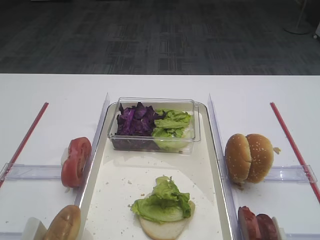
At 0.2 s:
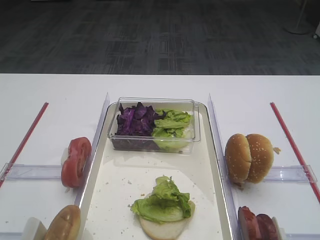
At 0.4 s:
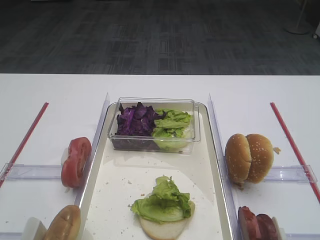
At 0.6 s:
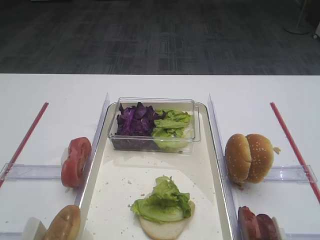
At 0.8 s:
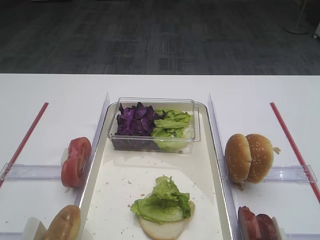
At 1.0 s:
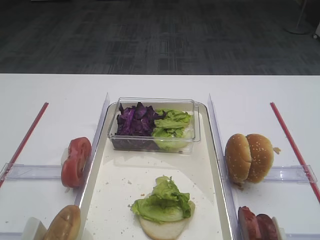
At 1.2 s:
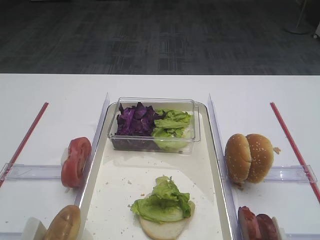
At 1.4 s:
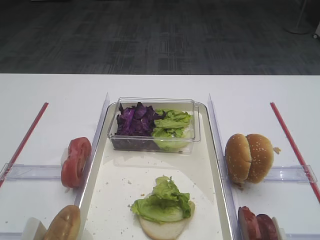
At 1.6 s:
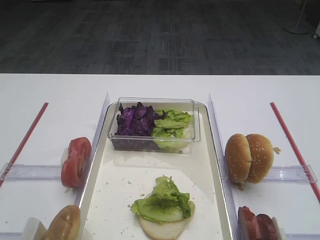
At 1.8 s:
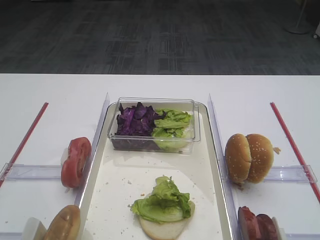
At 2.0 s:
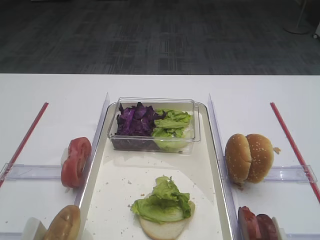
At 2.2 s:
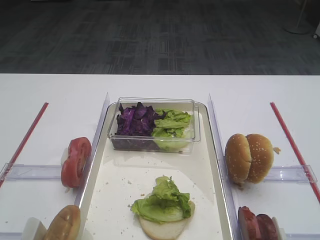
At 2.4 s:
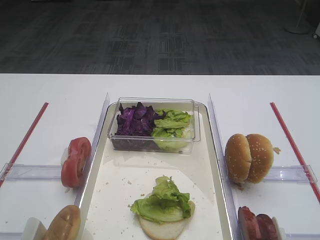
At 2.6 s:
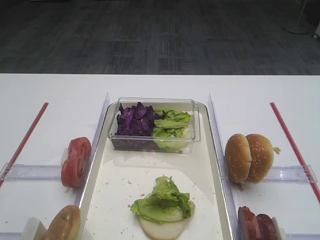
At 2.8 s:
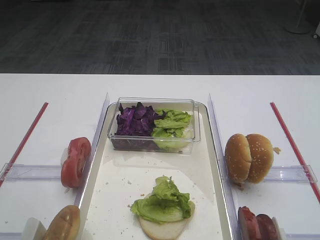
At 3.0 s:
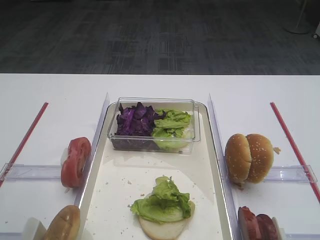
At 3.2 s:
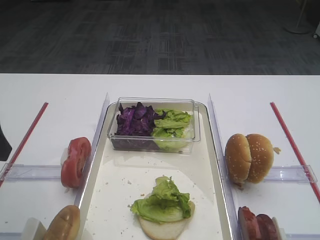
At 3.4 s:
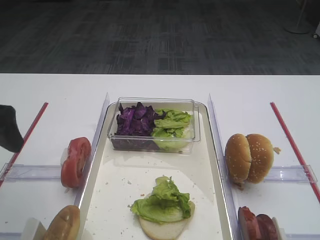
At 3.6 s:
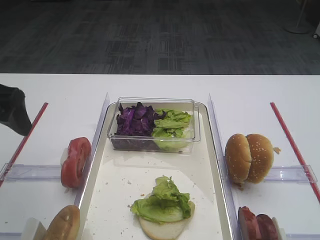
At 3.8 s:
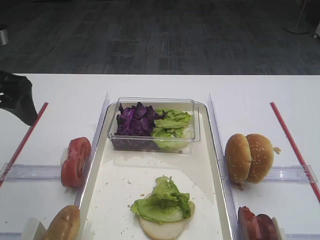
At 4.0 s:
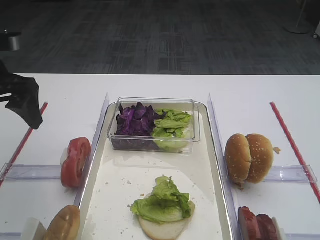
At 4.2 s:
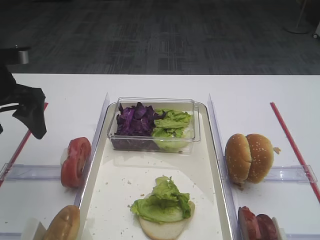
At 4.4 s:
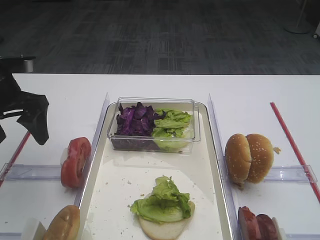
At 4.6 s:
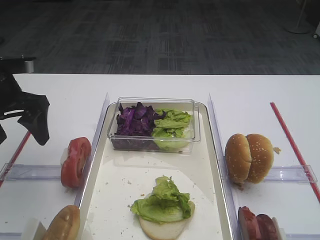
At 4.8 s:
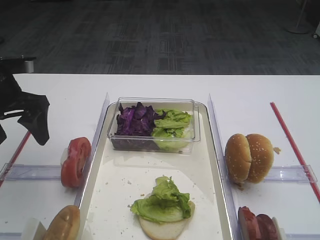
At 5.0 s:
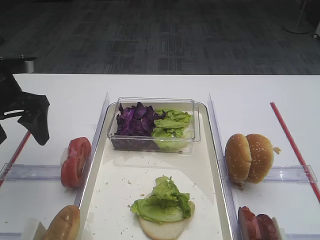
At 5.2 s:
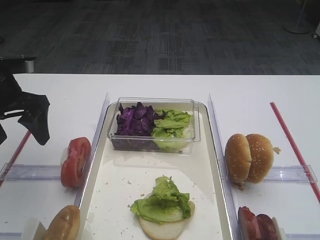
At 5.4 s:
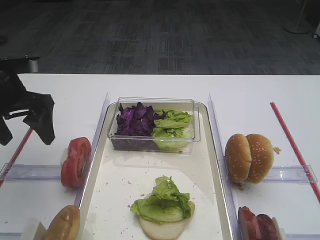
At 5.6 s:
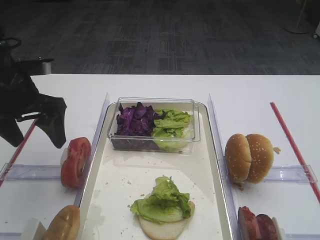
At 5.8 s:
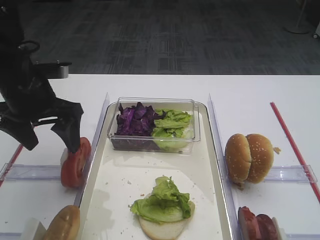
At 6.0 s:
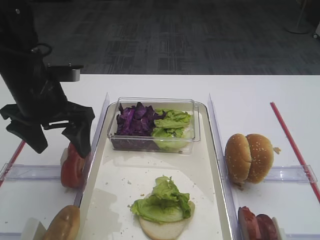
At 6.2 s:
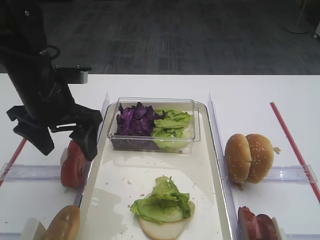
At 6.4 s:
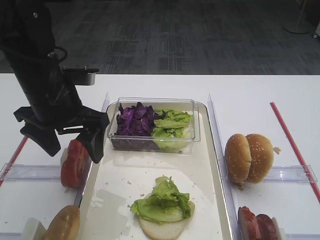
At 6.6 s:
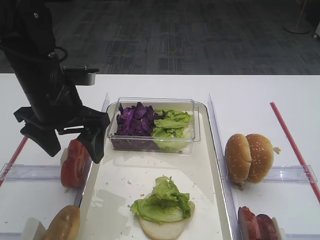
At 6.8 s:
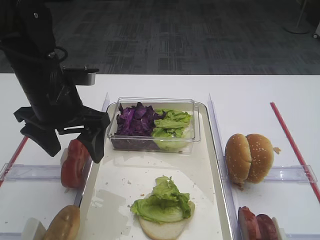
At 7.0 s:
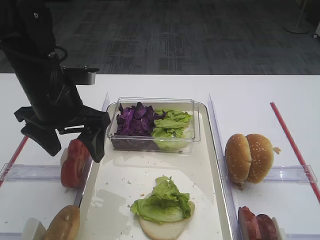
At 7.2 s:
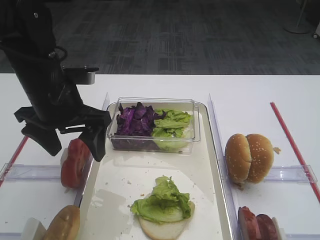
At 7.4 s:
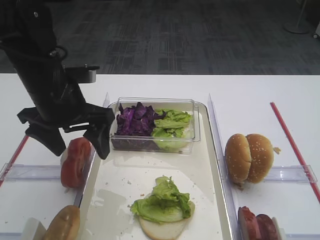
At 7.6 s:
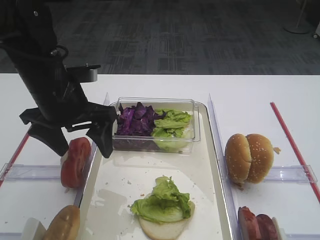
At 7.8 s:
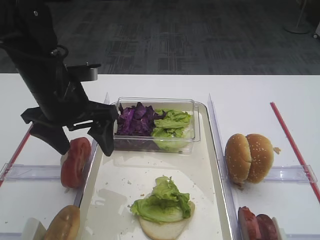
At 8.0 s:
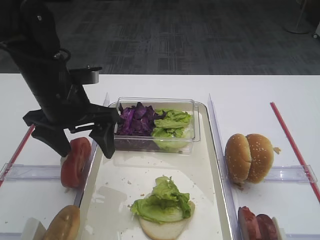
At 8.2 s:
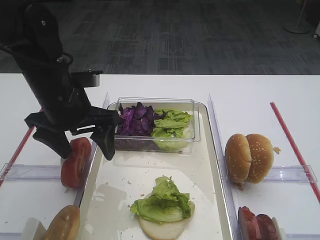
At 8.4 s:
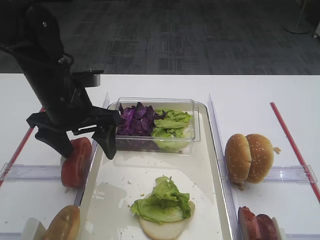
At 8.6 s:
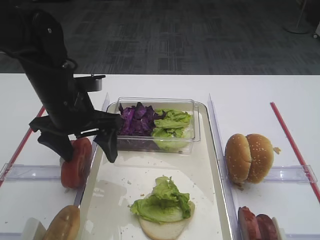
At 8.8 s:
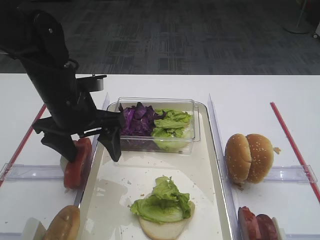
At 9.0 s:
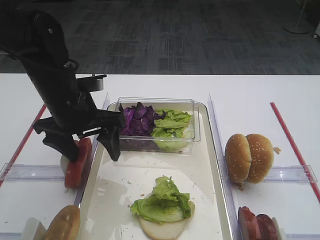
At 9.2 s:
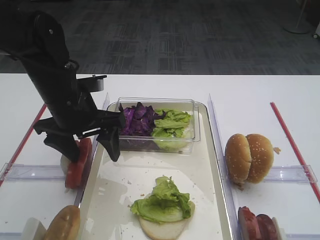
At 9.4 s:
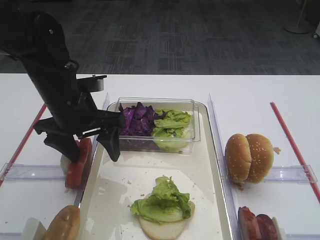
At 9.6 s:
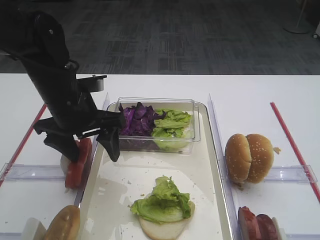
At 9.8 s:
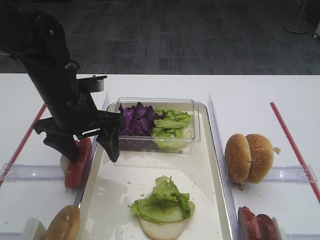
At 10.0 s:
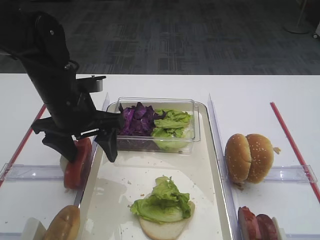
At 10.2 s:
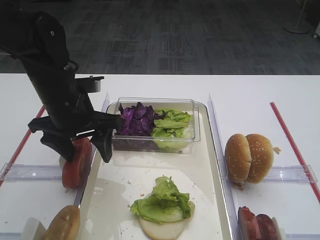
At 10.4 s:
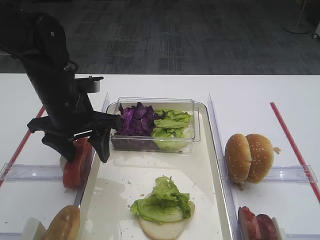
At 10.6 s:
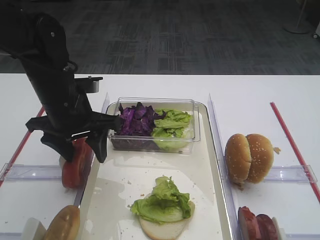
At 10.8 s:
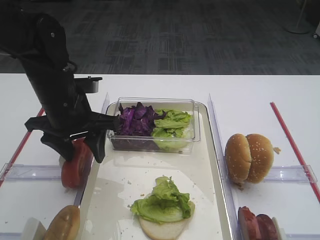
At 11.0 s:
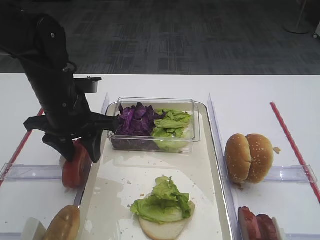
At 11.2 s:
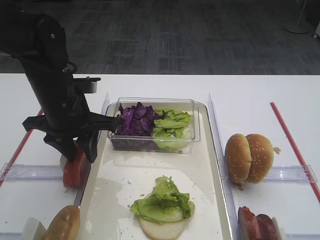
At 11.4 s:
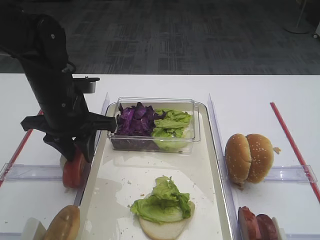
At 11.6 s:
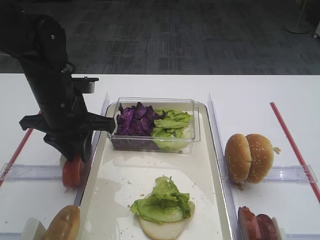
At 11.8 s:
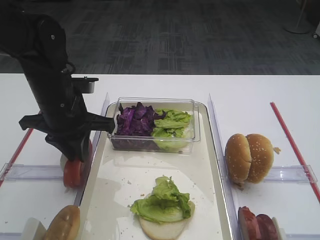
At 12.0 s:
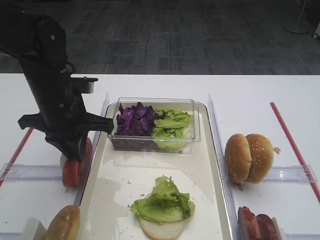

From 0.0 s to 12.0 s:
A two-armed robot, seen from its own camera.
From 3.0 s to 4.4 s: The left gripper travels forward and downward by roughly 20 cm.
From 4.4 s to 6.0 s: The left gripper heads to the right, covering approximately 10 cm.
From 6.0 s to 9.0 s: The grippers make only small movements.
From 10.4 s to 12.0 s: The left gripper closes up.

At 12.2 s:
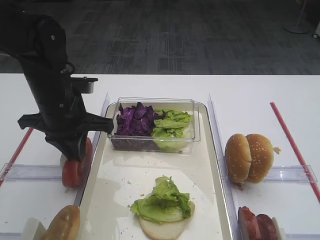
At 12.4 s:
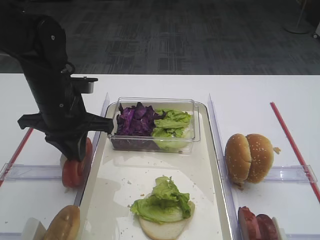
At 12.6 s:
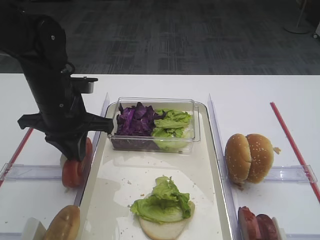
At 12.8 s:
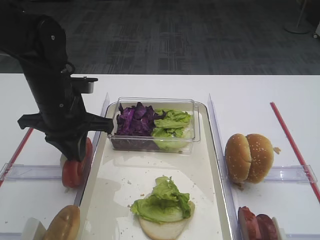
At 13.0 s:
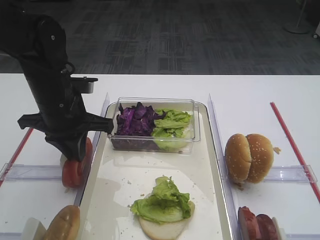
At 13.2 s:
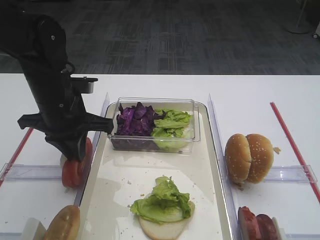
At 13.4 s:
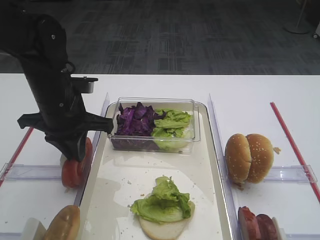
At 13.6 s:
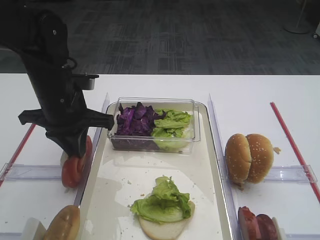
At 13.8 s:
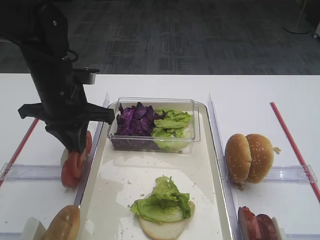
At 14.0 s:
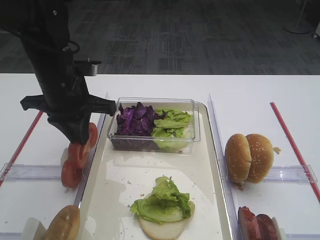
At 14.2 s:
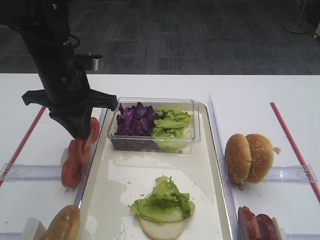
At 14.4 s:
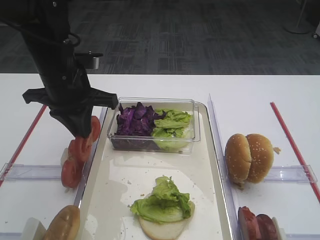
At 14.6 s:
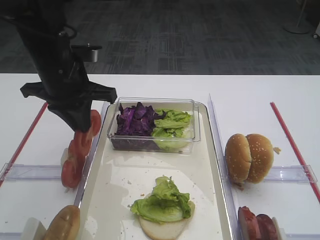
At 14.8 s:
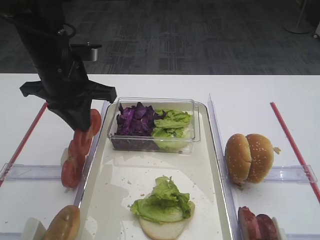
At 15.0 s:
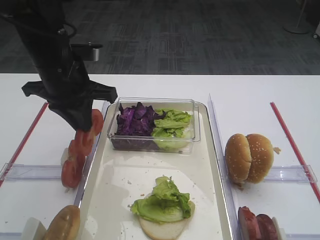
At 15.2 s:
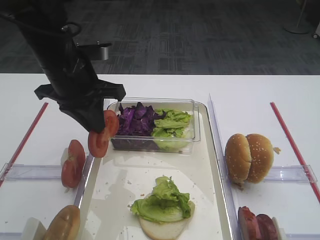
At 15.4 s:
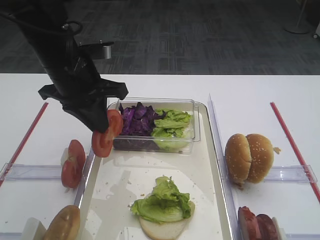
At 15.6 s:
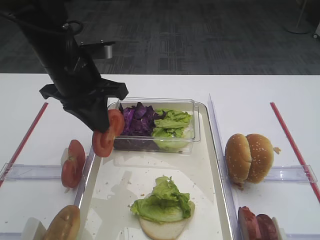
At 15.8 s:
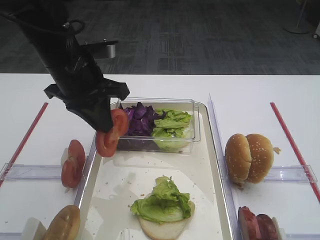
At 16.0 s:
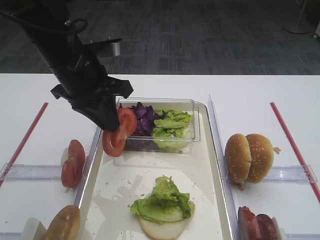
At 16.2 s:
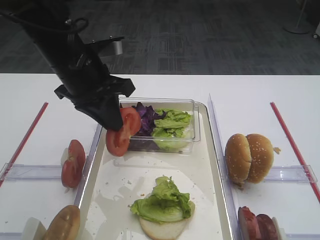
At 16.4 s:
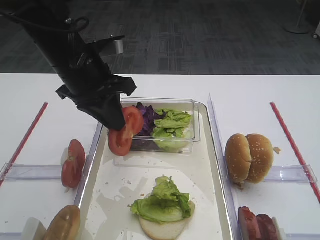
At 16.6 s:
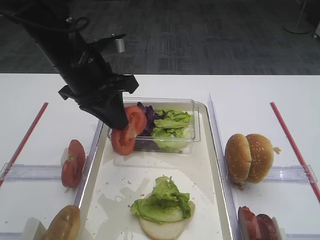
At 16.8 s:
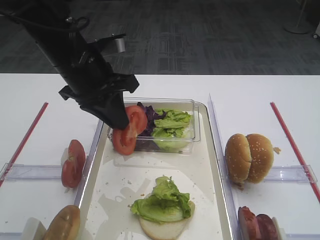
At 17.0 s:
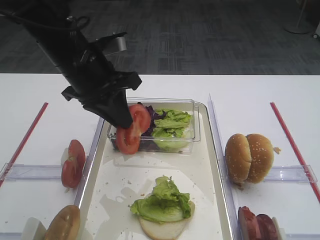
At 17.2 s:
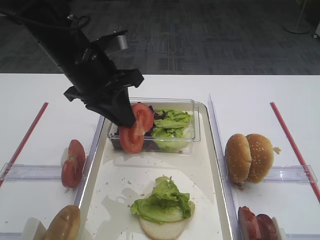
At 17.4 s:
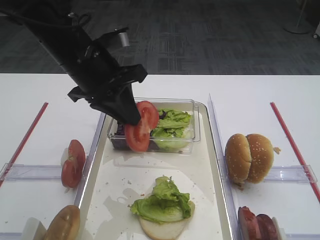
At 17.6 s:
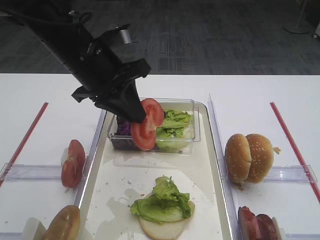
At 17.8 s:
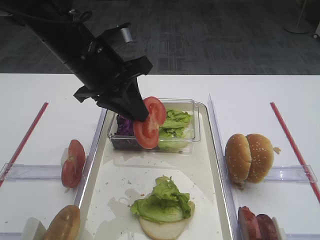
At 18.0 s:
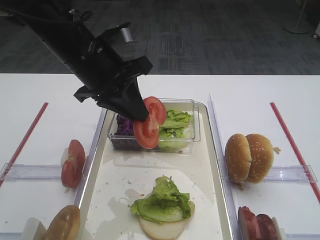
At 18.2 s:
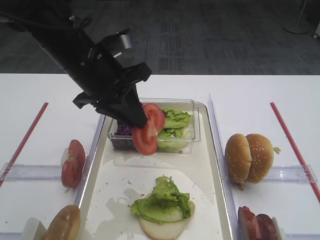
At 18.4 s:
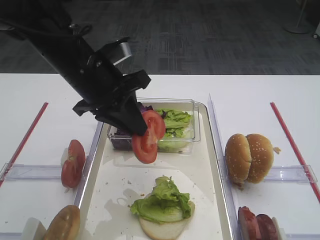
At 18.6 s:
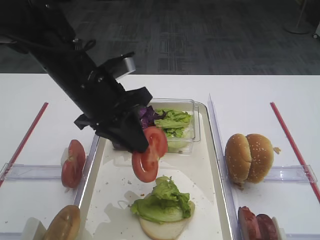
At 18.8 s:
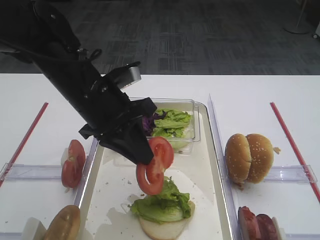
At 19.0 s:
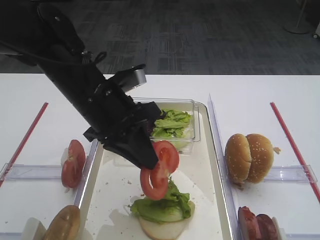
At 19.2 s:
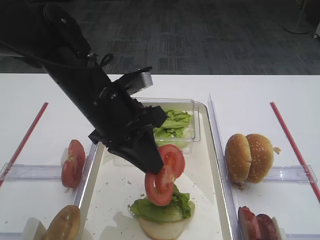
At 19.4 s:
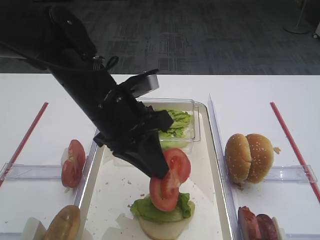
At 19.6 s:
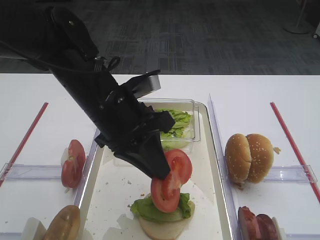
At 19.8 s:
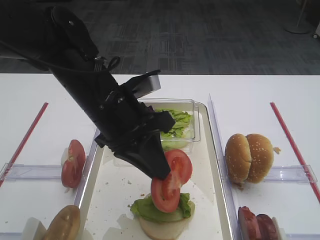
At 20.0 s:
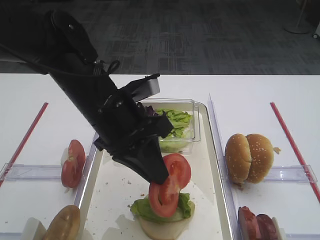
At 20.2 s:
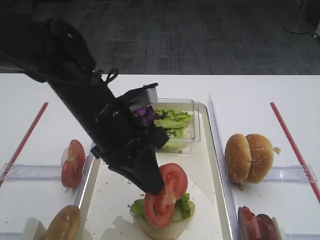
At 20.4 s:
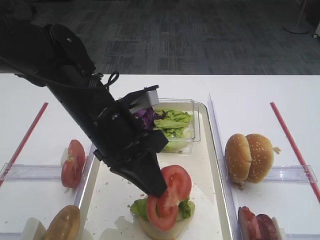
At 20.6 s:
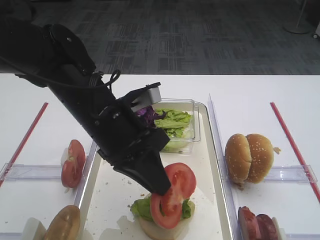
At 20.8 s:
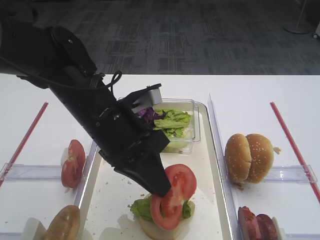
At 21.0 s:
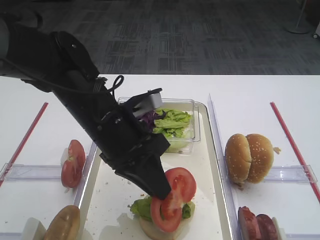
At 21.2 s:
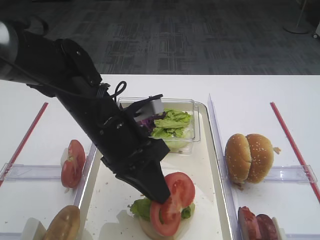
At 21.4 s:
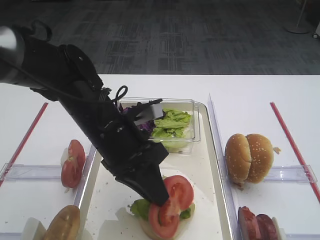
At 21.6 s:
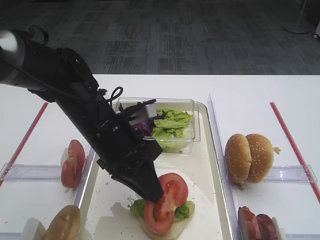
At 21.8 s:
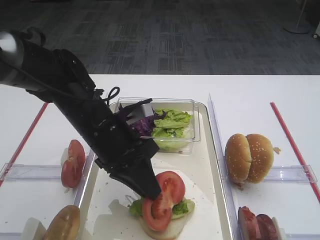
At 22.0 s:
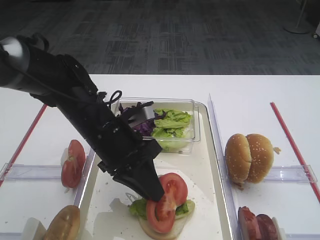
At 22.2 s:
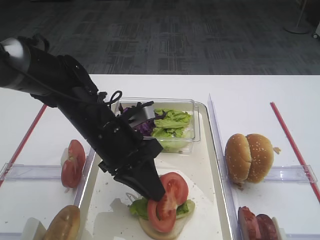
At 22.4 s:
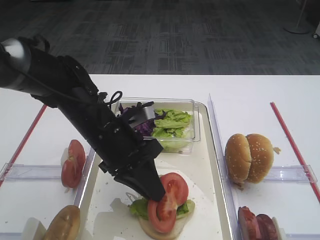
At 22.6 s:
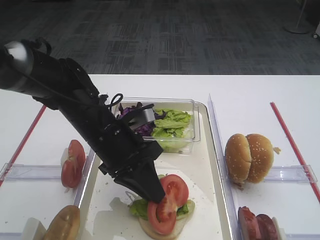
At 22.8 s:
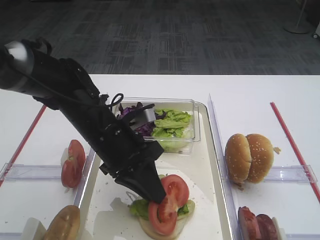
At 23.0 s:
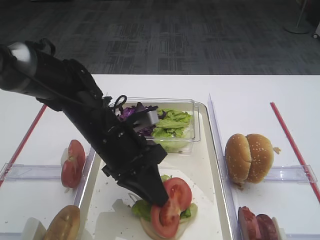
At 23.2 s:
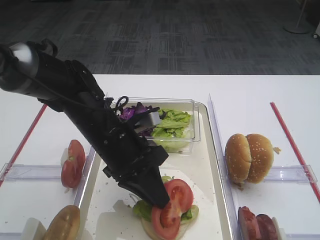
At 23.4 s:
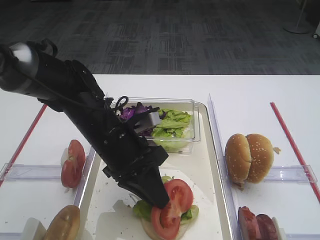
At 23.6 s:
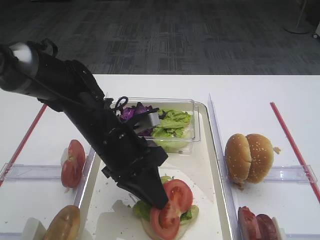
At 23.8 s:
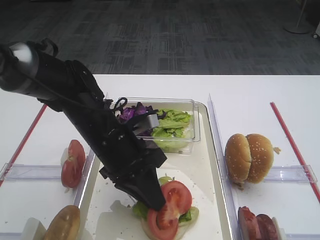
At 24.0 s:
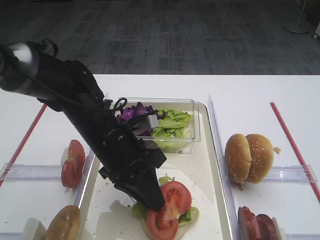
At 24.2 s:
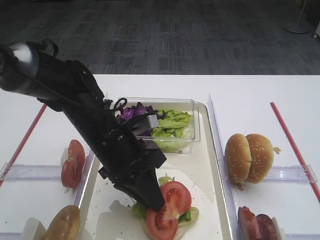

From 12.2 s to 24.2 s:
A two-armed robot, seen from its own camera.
Step, from 12.2 s to 14.4 s: Pick up the tomato slice with the left gripper.
From 12.2 s to 15.2 s: There are only small adjustments of the grippers.
From 15.2 s to 16.6 s: The grippers move only a little.
From 16.6 s to 18.2 s: The grippers make only small movements.
From 18.2 s to 19.8 s: The left gripper heads backward, covering roughly 5 cm.
From 19.8 s to 21.2 s: The grippers make only small movements.
From 21.2 s to 22.6 s: The grippers move only a little.
From 22.6 s to 24.2 s: The two grippers keep their place.
